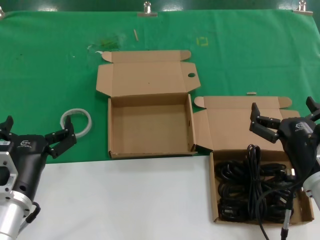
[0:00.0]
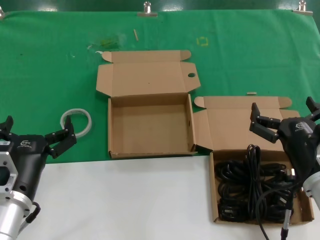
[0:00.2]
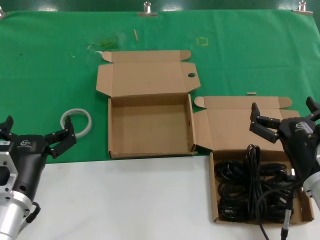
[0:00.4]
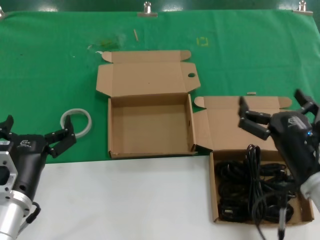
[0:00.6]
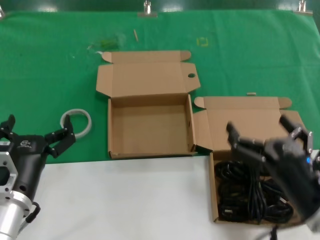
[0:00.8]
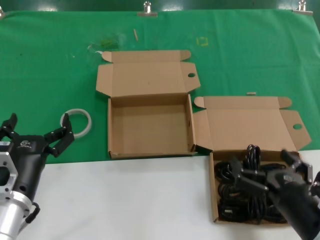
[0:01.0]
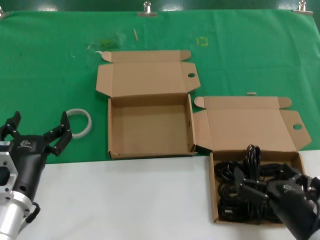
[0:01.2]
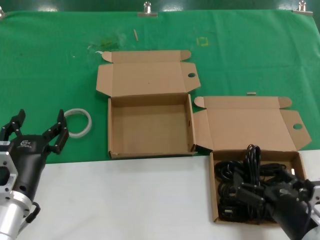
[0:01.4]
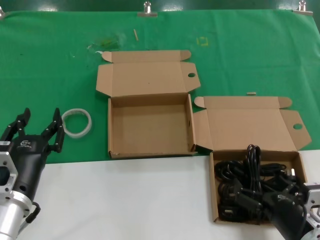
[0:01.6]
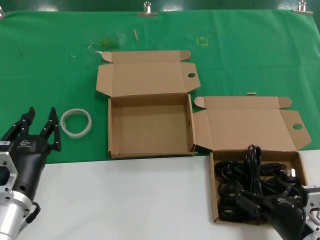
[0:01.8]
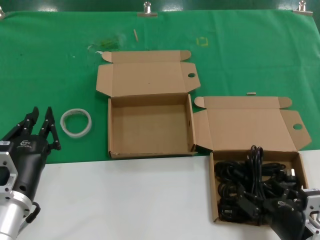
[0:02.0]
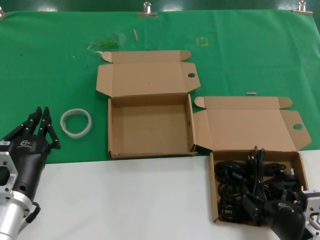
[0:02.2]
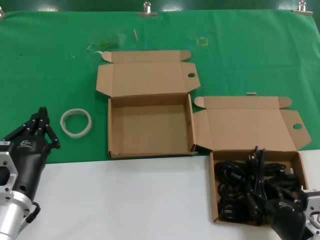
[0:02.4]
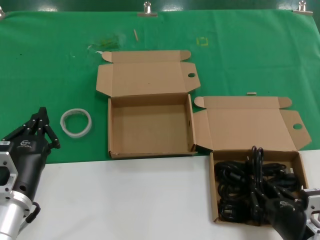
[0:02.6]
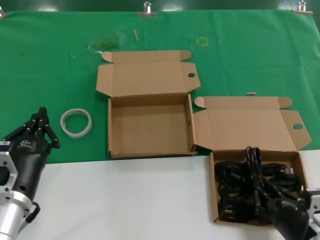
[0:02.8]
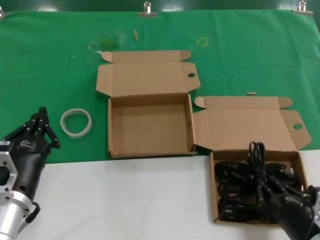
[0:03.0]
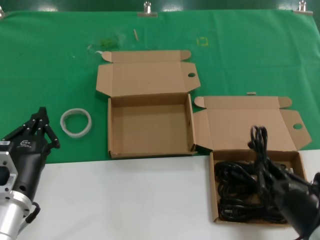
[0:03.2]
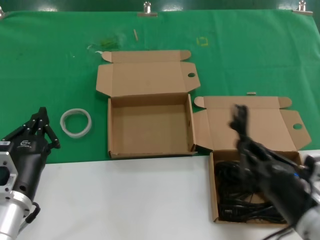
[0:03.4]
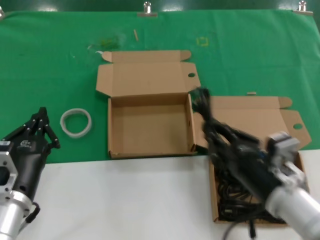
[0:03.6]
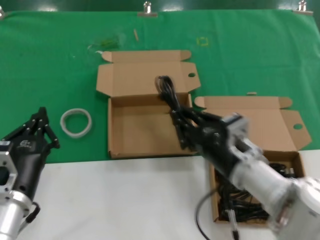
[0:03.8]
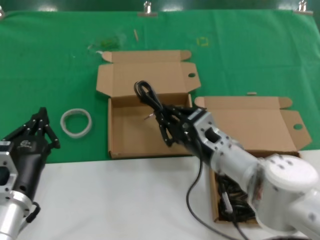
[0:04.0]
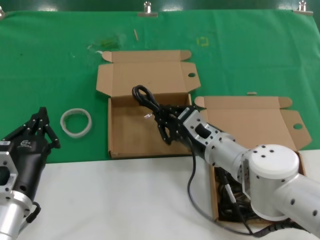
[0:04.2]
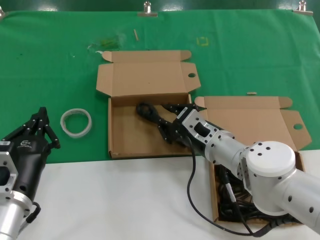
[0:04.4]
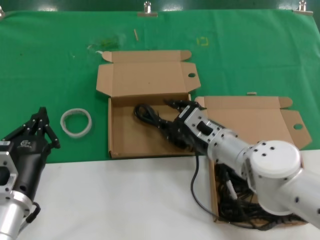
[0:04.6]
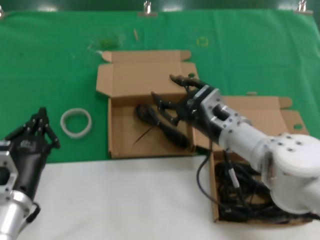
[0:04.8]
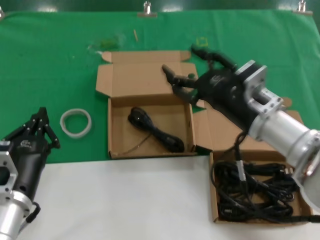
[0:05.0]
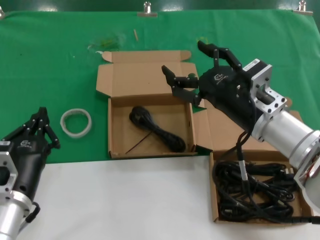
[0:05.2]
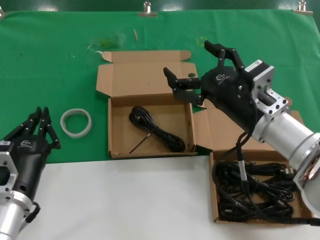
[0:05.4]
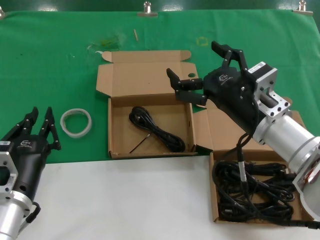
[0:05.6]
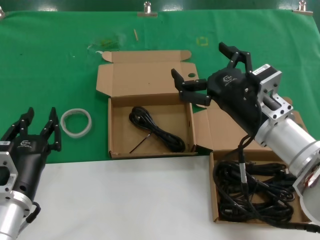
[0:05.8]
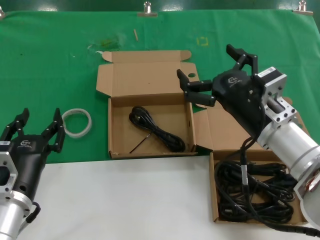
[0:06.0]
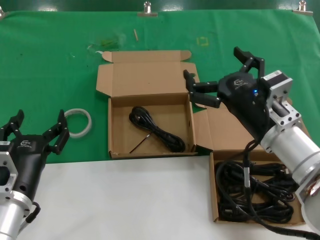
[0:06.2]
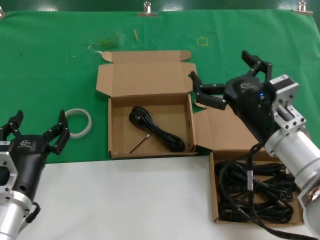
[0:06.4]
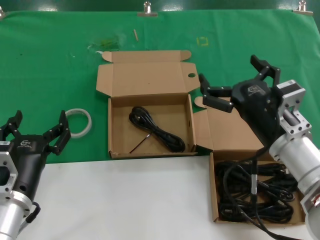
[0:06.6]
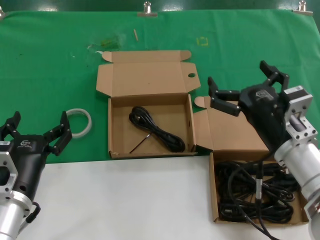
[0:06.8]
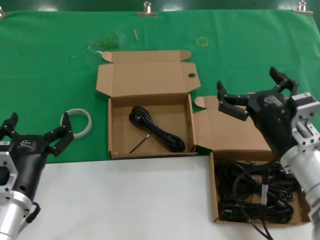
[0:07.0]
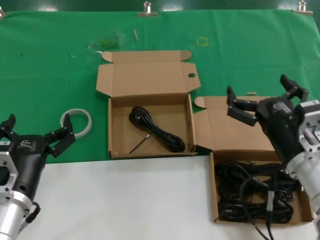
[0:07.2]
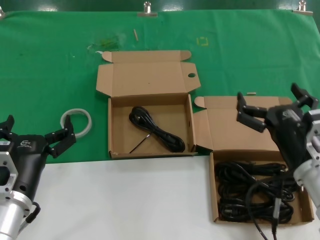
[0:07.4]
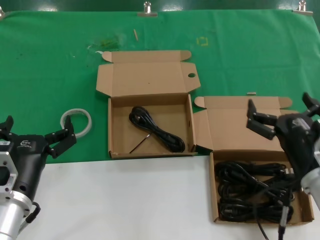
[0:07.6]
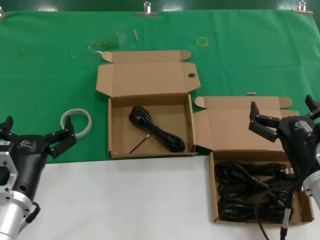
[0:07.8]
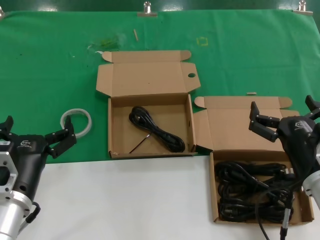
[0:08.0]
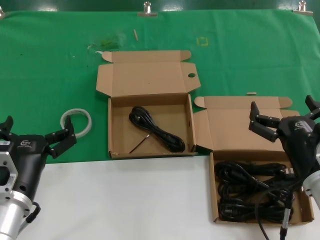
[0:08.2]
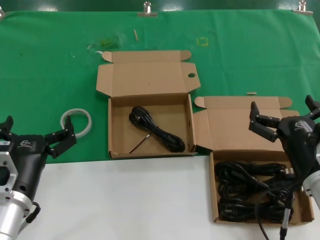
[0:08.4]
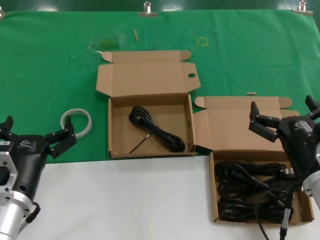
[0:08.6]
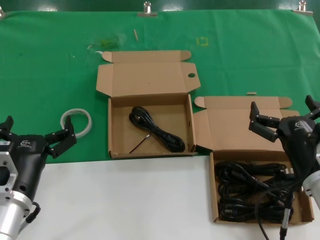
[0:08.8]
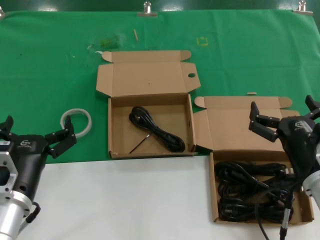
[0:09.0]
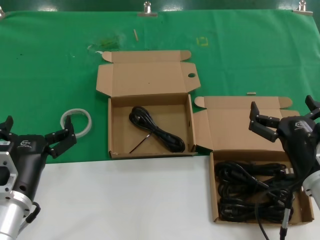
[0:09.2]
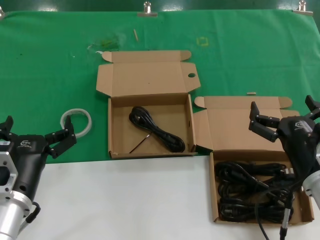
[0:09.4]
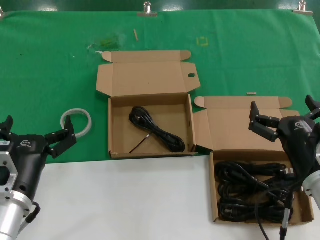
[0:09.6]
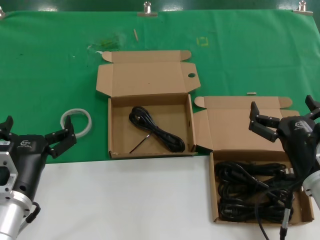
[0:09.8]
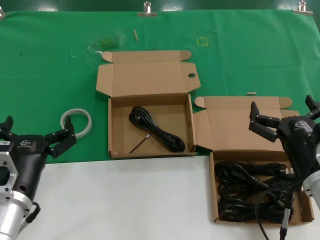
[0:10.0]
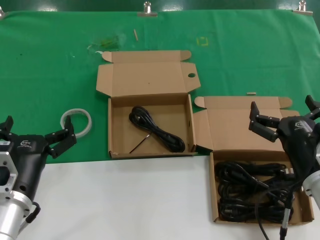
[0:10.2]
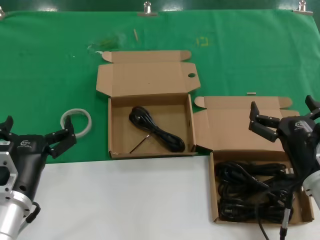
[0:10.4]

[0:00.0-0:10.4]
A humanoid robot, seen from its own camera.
Task of the whole recording: Pick up the power cord from the box containing it and place it in another box.
Step, 0:00.0 to 0:02.8: Grasp the data cable.
Step, 0:03.0 to 0:04.6: Place the data cable in the another box.
0:00.0 to 0:01.4: The right hand is displaced backward by about 10 cm.
0:01.4 to 0:03.0: The hands make only small movements.
0:03.0 to 0:04.4: The right hand heads forward and to the left, covering about 25 cm.
0:04.4 to 0:06.0: The right hand moves upward, backward and to the right, roughly 15 cm.
0:06.0 to 0:07.4: The right hand is displaced downward by some 5 cm.
0:07.4 to 0:09.0: The hands stay close to where they were, moving slightly.
0:09.0 to 0:10.4: Both hands stay about where they are.
